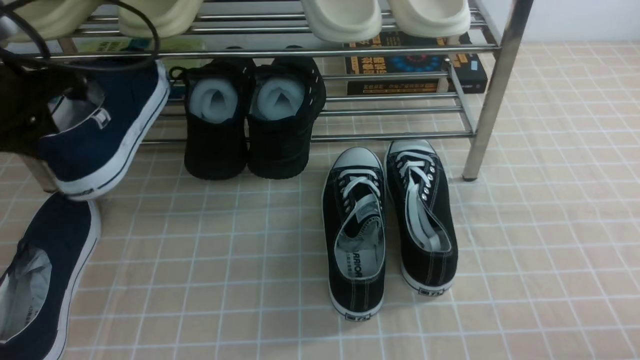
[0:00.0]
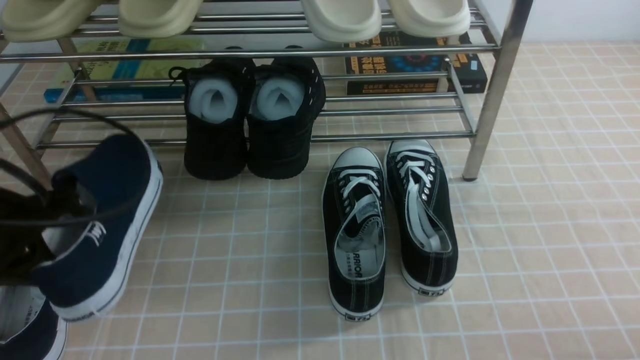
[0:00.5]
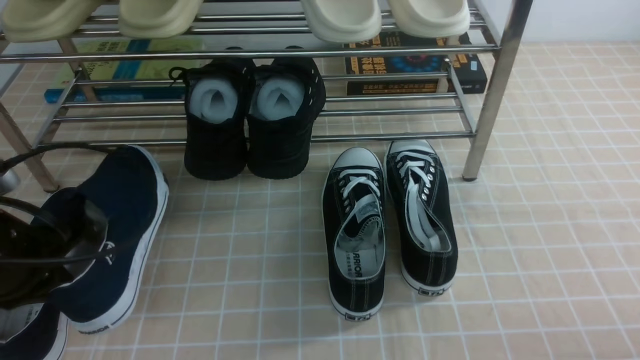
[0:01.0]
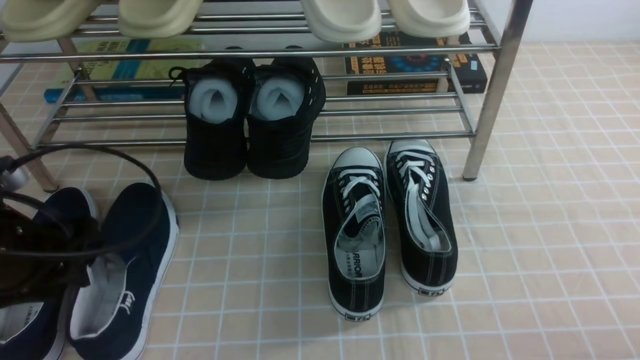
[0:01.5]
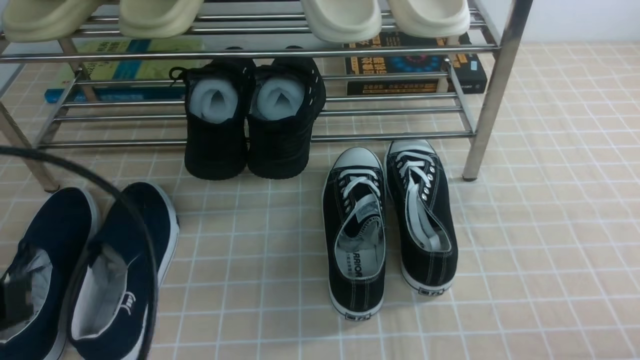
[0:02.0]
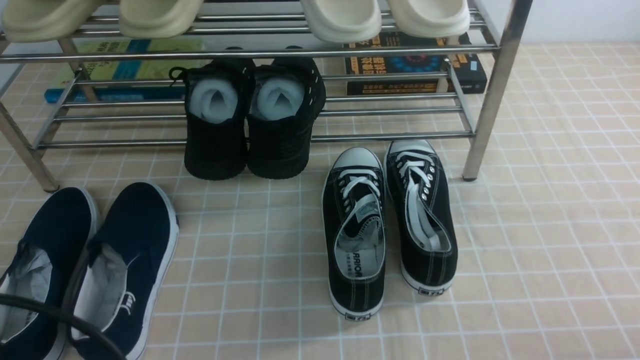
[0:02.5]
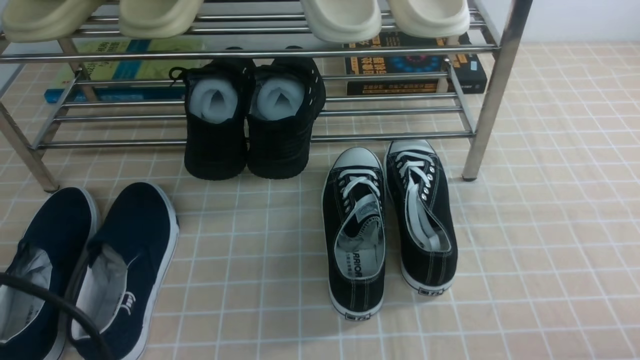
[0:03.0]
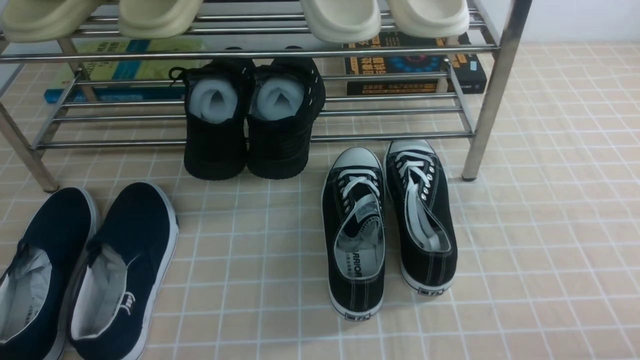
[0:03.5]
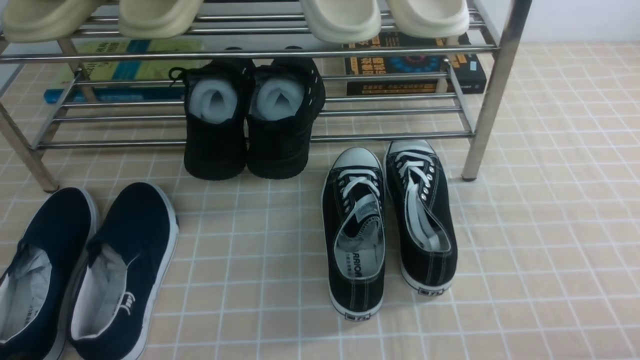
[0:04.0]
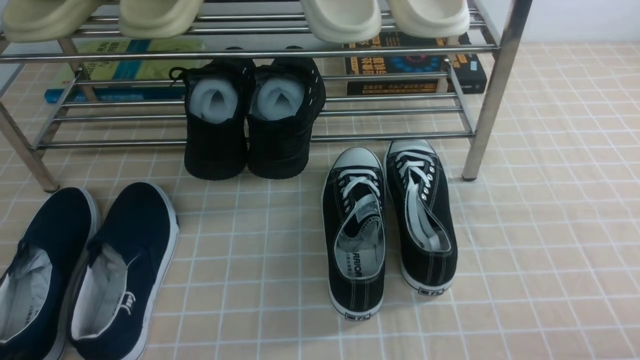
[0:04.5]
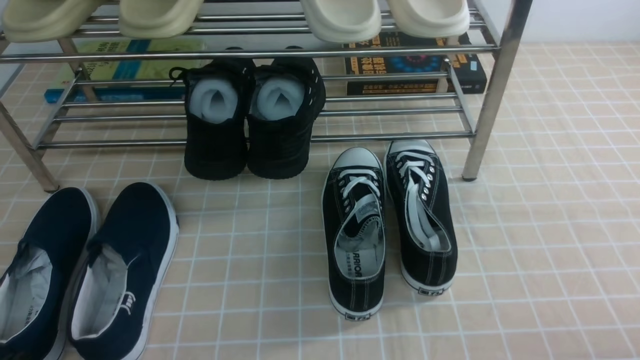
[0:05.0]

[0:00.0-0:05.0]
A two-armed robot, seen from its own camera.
Step, 0:00.0 to 0:01.5: Use your left arm to remove the clamped shoe from the shoe rack and put it down.
0:00.0 to 0:02.5: The left gripper goes about 25 cm backward, and opens, then closes again.
